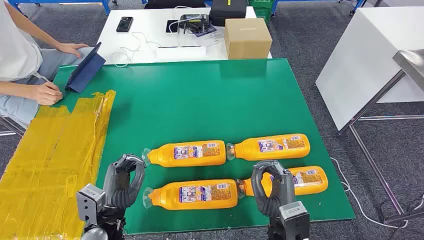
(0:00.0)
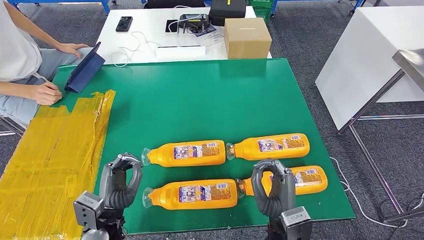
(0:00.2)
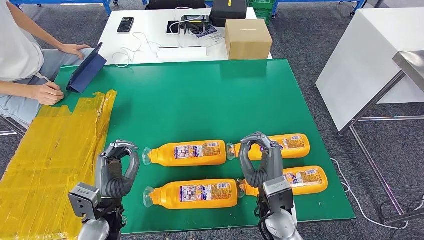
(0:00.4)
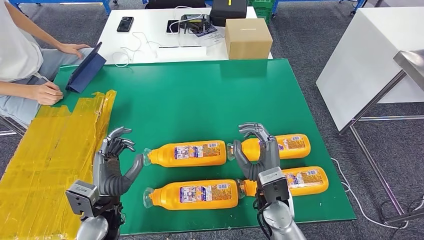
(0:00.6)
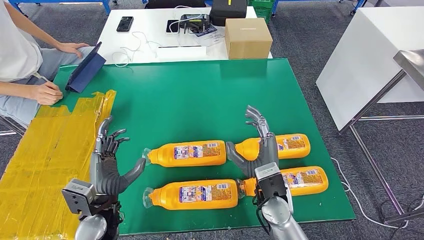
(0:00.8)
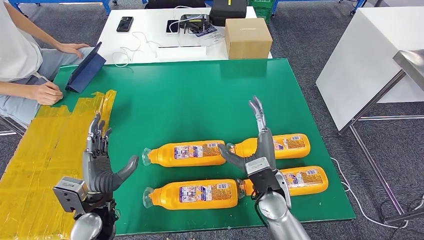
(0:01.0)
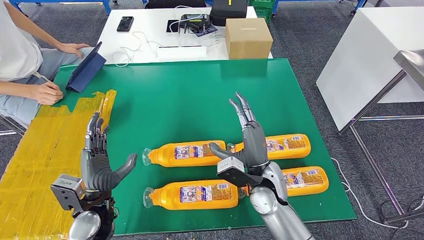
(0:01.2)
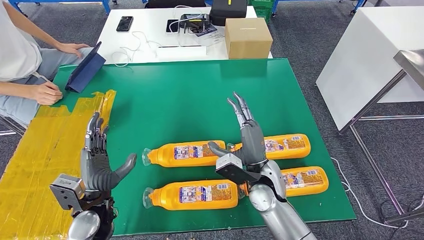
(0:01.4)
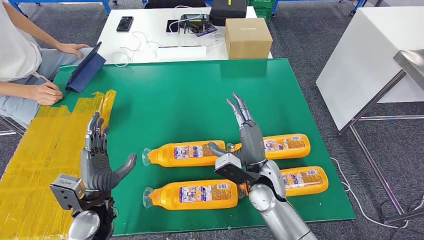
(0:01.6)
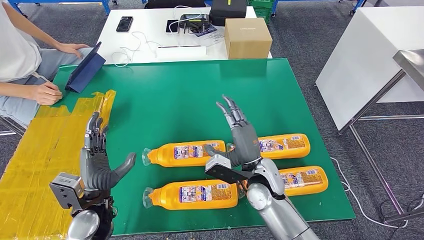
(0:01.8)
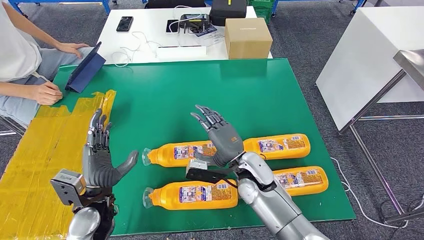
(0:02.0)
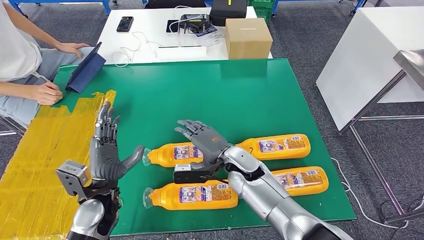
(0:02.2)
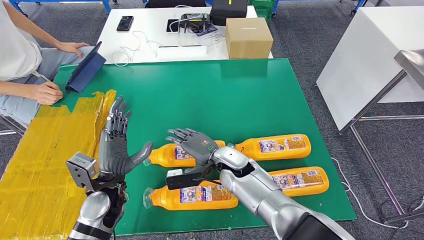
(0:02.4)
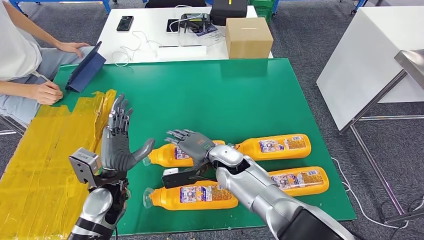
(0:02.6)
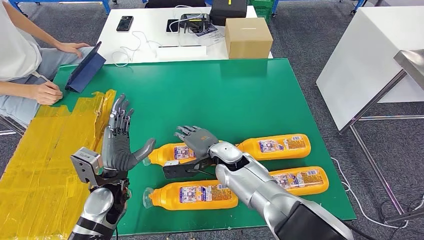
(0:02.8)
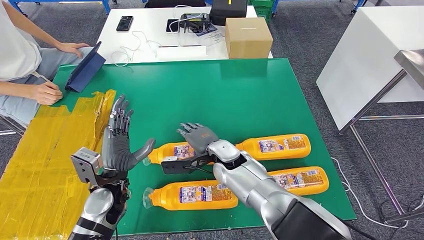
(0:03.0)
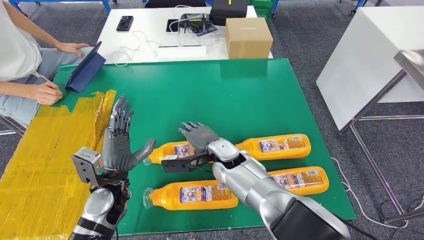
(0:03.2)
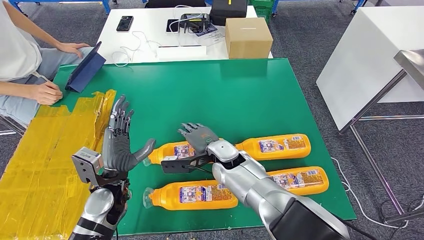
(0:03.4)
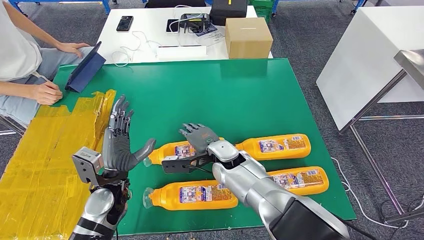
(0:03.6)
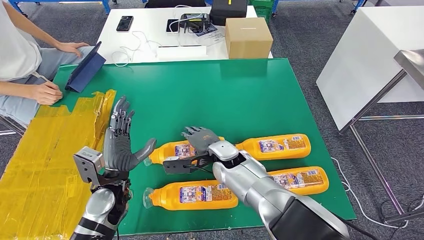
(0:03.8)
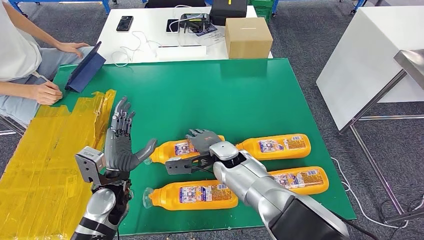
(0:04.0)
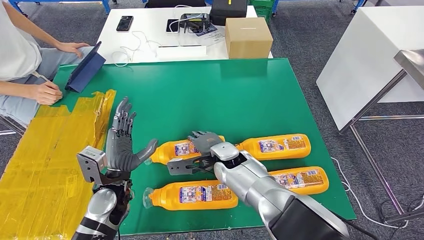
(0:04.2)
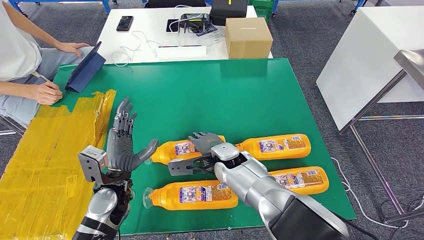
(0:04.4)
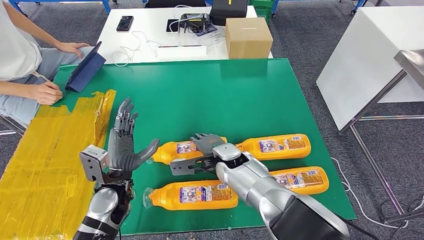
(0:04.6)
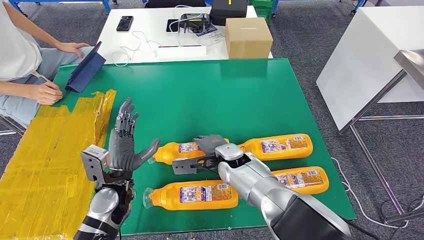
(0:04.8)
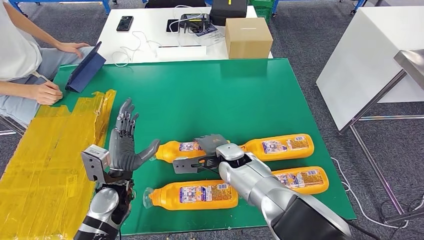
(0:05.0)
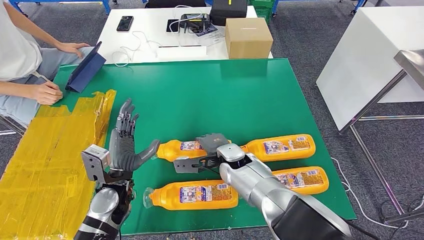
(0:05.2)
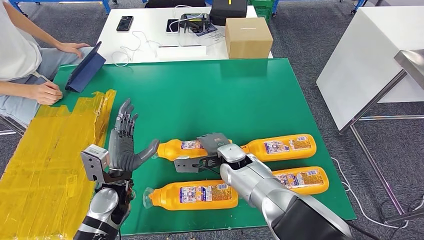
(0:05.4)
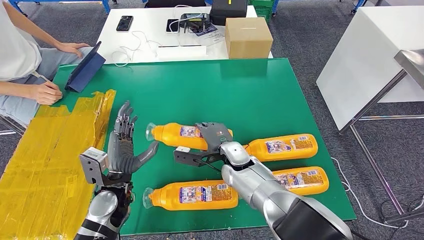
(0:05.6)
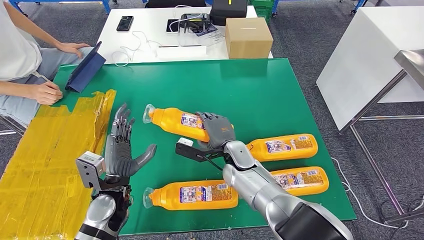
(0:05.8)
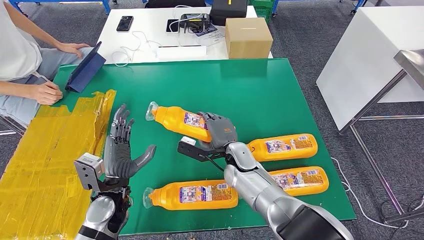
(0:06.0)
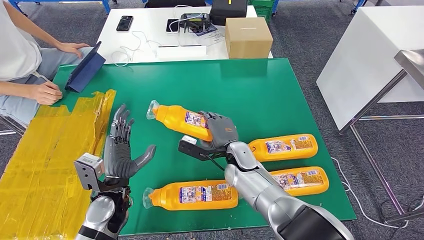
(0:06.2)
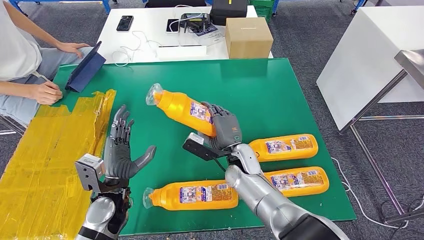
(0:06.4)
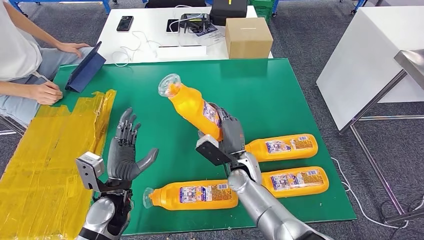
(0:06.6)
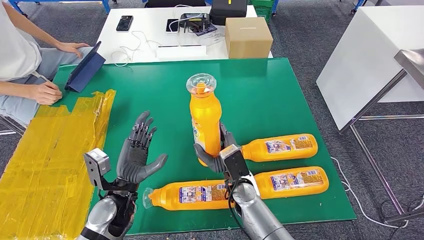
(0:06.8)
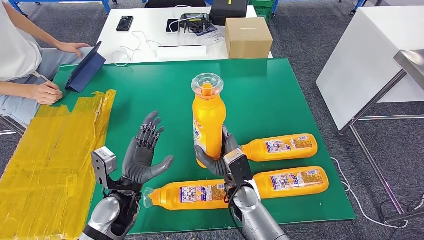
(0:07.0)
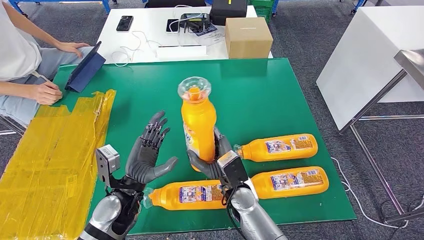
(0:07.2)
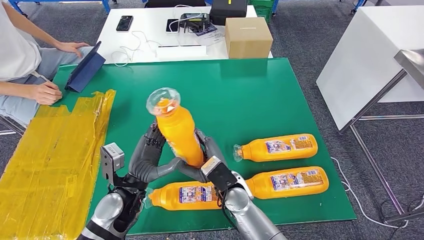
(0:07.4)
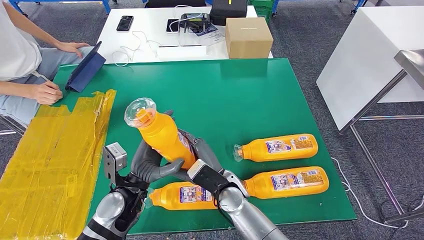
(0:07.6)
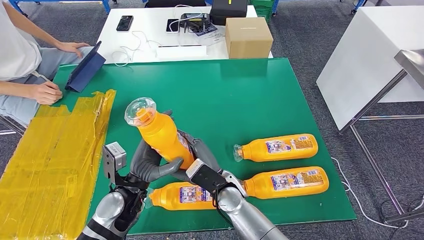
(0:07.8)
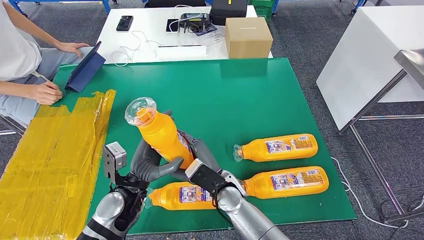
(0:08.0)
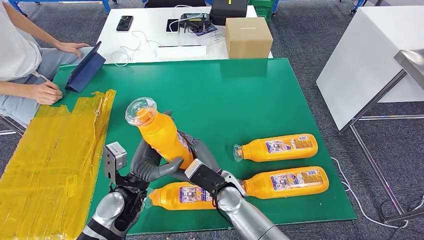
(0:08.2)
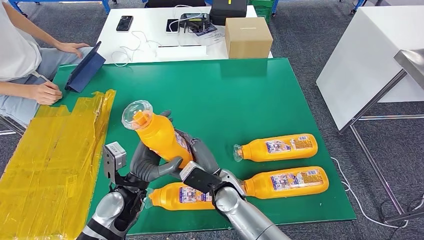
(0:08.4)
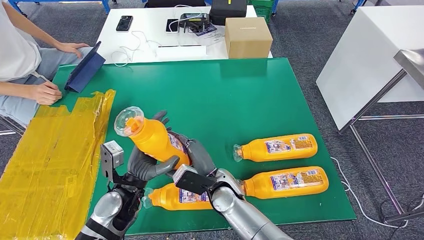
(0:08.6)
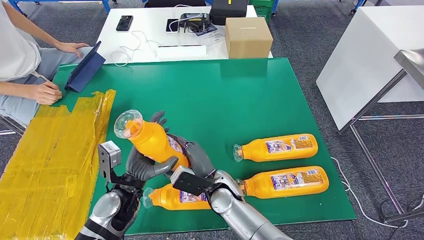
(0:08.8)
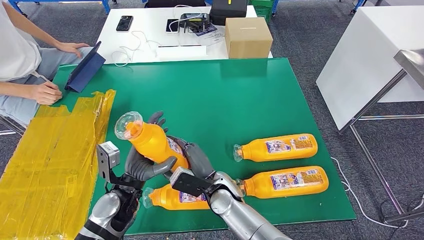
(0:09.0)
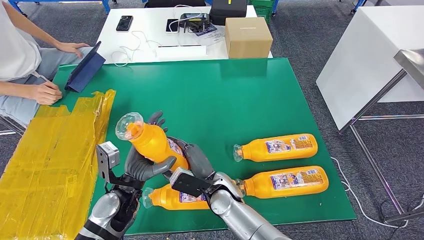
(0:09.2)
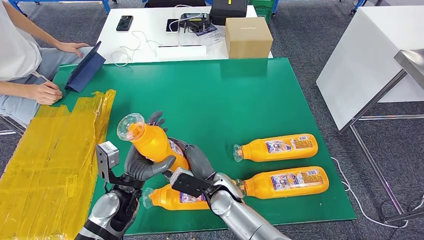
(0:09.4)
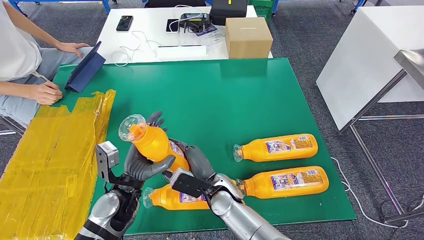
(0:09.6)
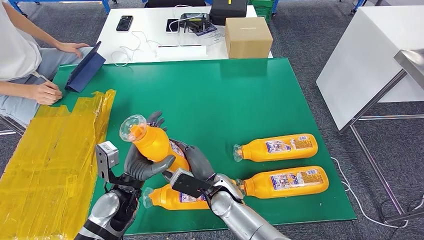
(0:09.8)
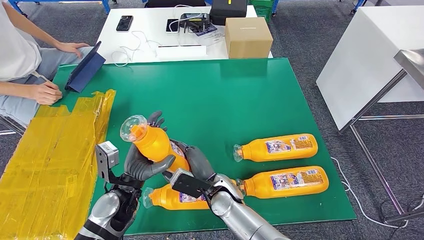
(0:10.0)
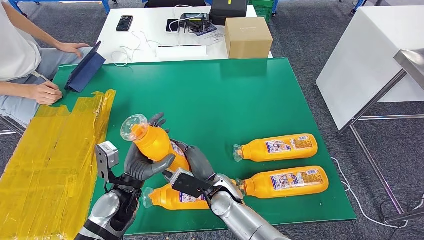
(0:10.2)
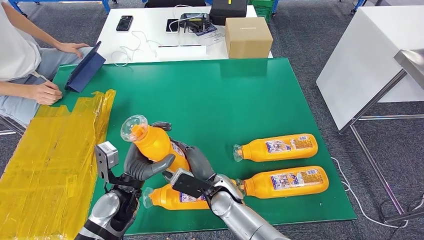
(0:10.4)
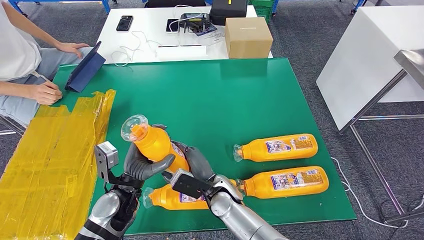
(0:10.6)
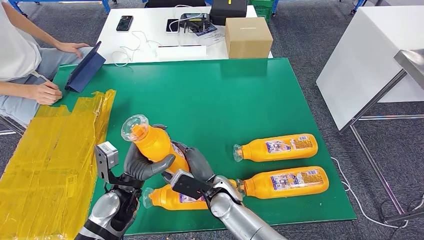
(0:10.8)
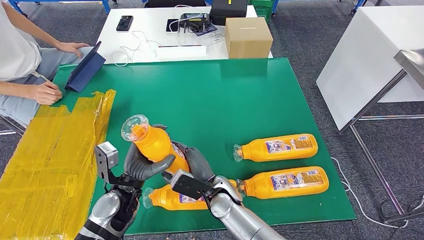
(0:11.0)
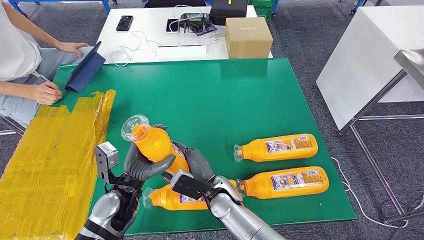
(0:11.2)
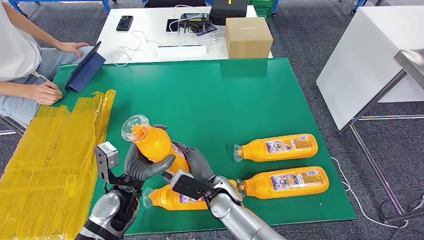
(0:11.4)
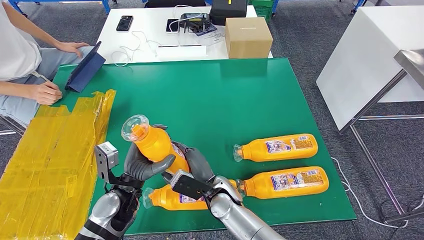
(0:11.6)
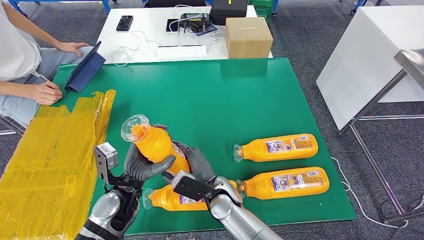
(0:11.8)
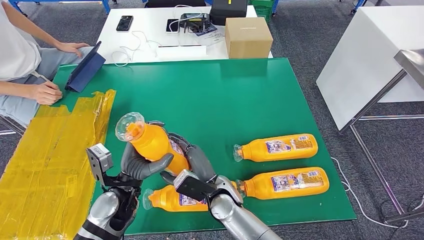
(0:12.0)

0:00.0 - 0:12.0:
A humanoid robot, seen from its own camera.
Step, 0:00.0 - 0:06.2: Take the bottle from the table.
0:01.6 - 0:03.0: The left hand shifts by roughly 5 cm. The right hand is displaced to the left and forward by about 10 cm.
0:03.0 - 0:04.4: There are only small adjustments of the hands.
0:06.0 - 0:07.6: The right hand is displaced backward by some 10 cm.
0:07.6 - 0:09.0: The hands move only a little.
0:09.0 - 0:10.4: Both hands stay put.
0:10.4 - 0:12.0: The hands make only small movements.

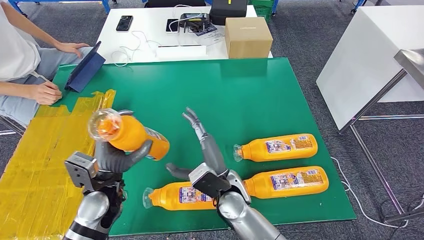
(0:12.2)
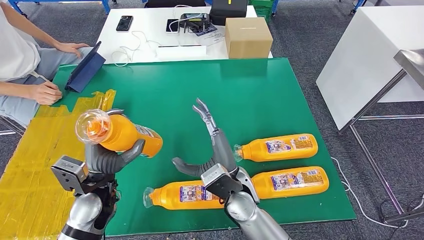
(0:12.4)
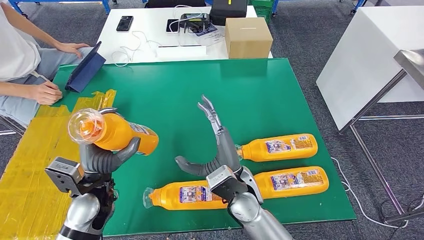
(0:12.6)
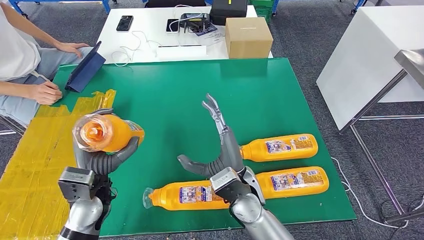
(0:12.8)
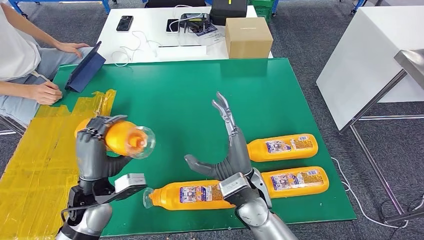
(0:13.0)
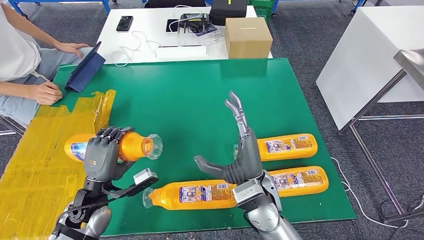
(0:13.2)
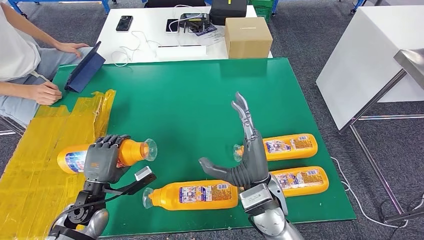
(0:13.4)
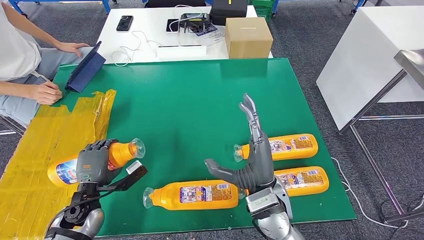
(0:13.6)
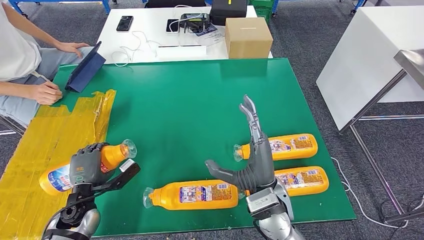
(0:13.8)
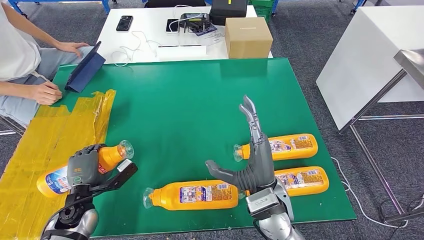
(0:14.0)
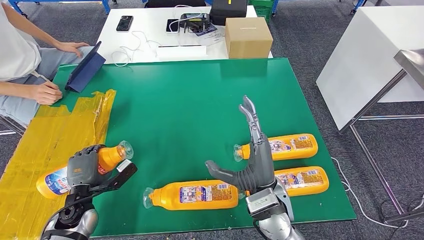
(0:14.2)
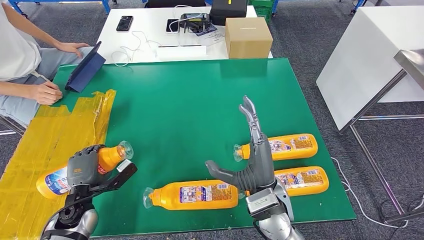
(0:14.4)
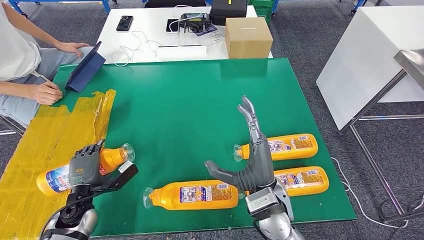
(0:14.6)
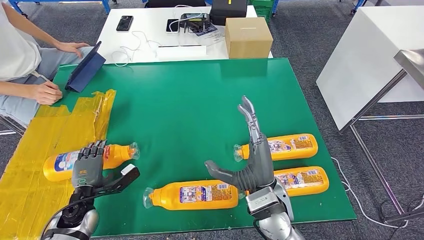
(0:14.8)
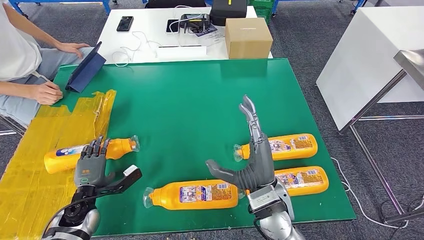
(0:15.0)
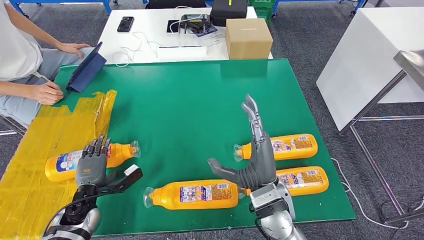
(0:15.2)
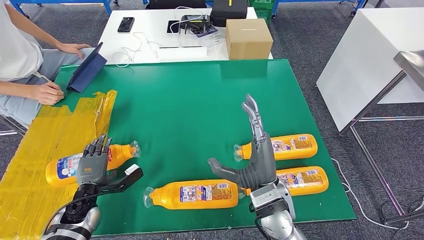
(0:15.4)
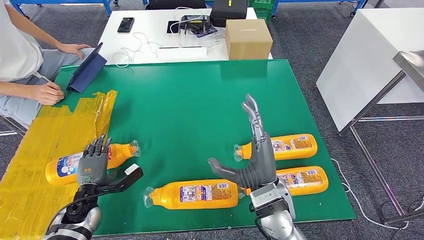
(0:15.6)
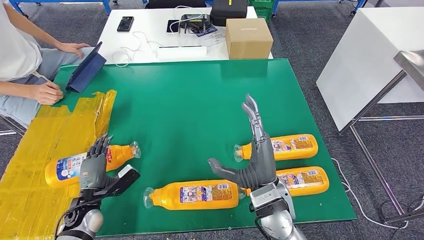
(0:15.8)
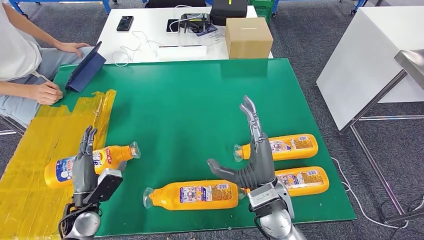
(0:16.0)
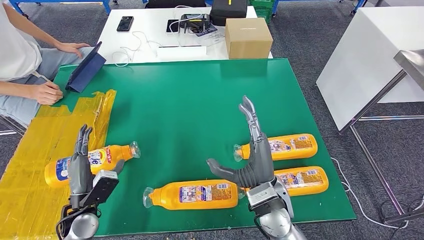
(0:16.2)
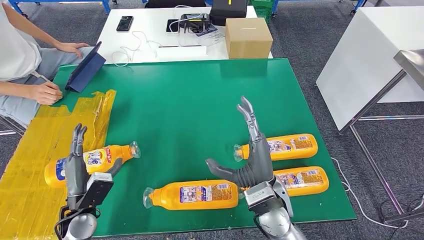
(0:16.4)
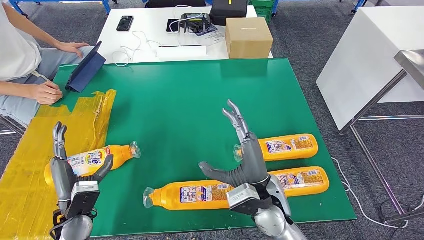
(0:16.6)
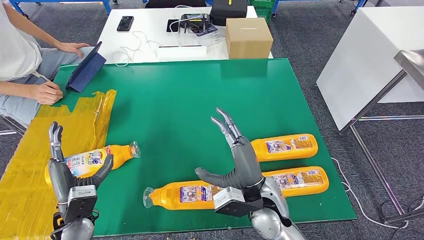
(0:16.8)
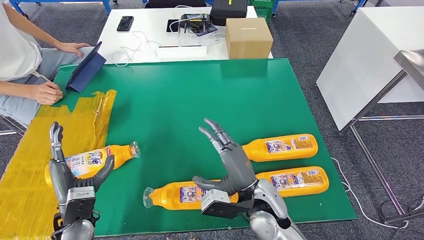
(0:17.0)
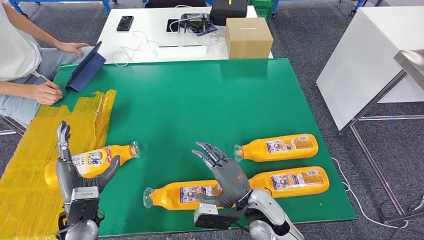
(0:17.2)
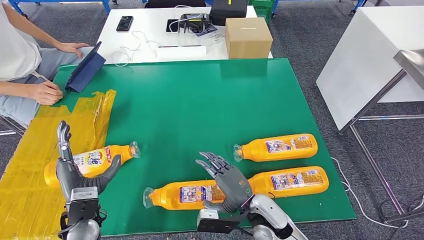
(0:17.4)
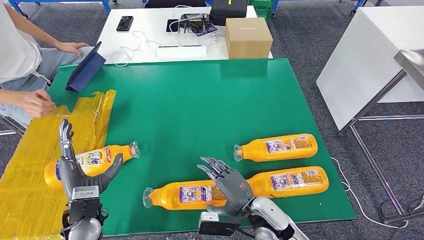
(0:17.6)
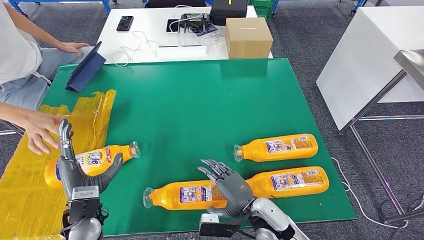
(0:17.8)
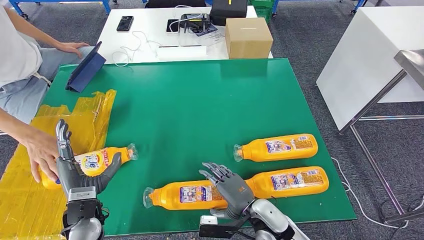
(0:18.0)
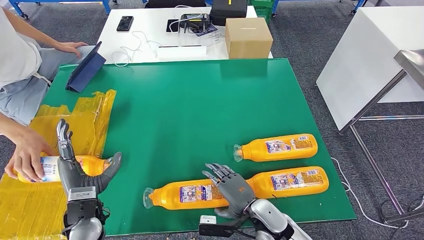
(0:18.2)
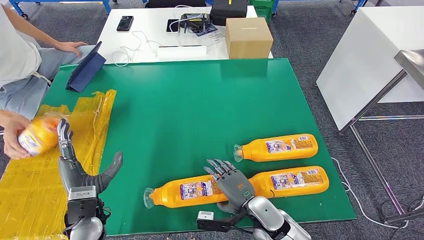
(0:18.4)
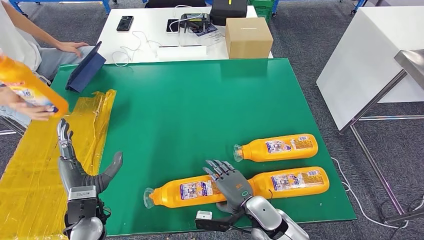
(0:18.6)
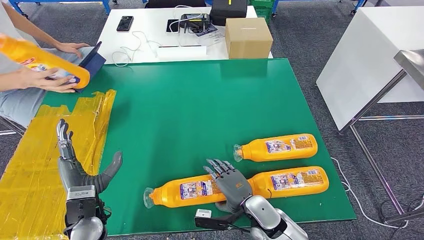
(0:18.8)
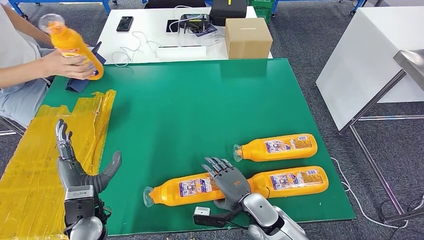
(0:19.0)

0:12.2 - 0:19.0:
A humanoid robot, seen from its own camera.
Step, 0:12.2 - 0:15.4: Flip the bottle to face forward.
0:12.2 - 0:13.6: The right hand heads to the right and upward, covering about 10 cm. The left hand heads to the left and downward, covering about 10 cm.
0:13.6 - 0:15.0: The hands make only small movements.
0:16.2 - 0:17.6: The left hand ends up about 5 cm from where it was. The right hand heads downward, covering approximately 10 cm.
